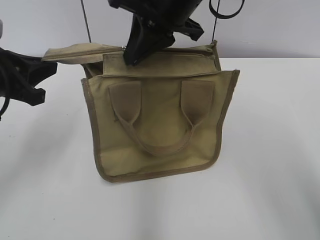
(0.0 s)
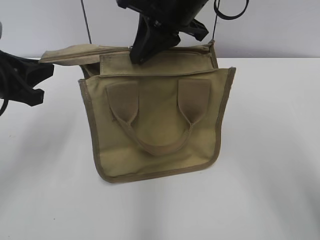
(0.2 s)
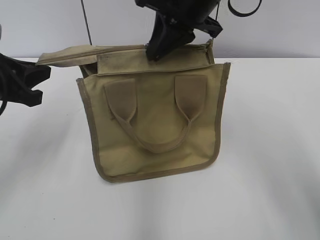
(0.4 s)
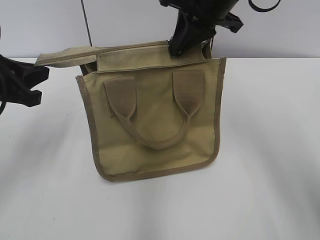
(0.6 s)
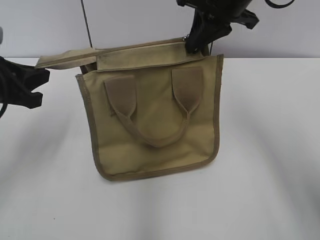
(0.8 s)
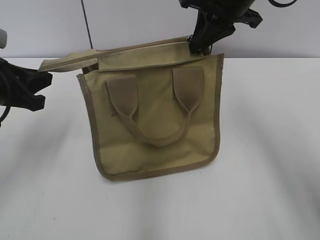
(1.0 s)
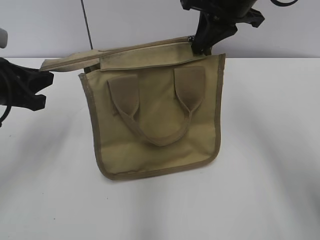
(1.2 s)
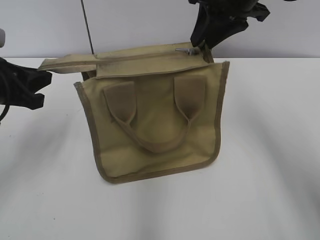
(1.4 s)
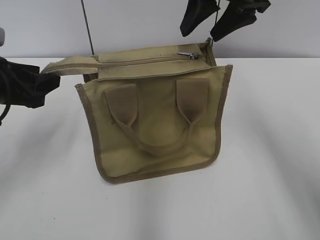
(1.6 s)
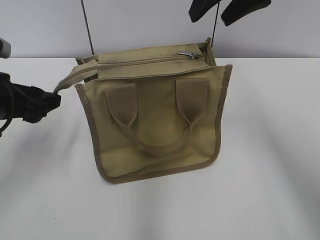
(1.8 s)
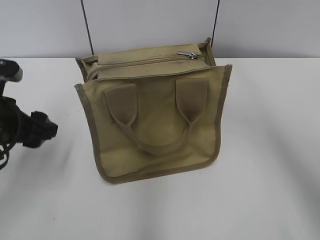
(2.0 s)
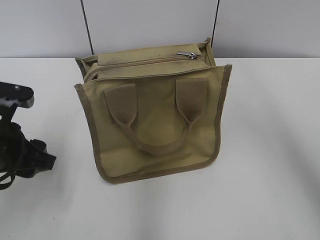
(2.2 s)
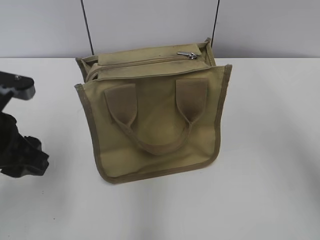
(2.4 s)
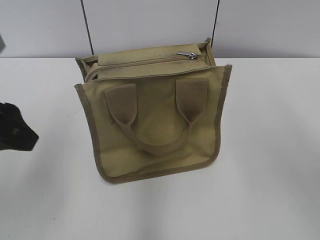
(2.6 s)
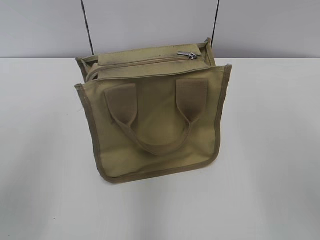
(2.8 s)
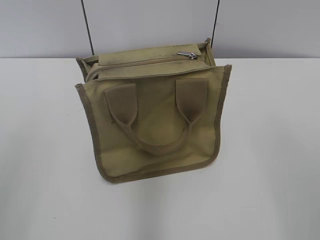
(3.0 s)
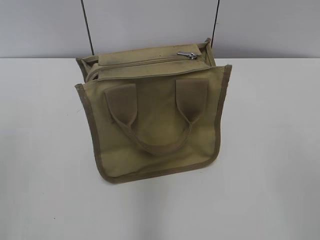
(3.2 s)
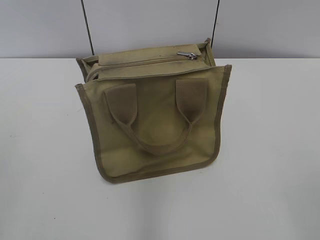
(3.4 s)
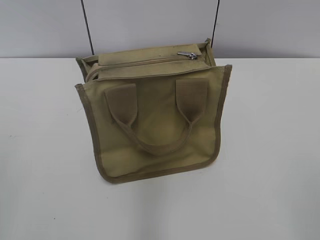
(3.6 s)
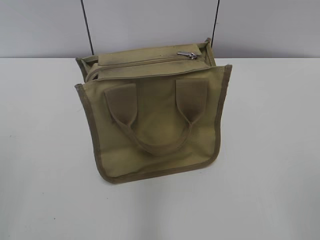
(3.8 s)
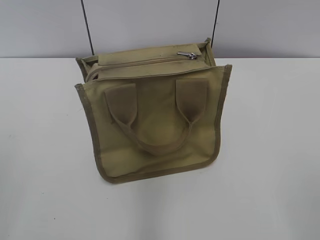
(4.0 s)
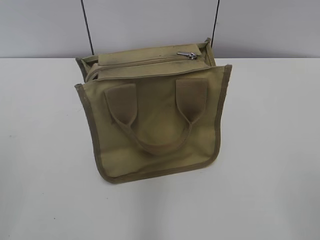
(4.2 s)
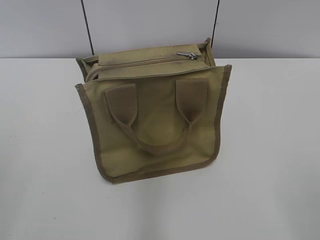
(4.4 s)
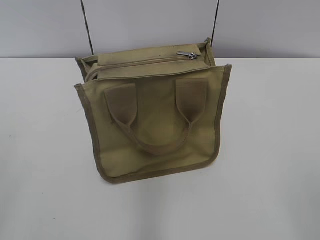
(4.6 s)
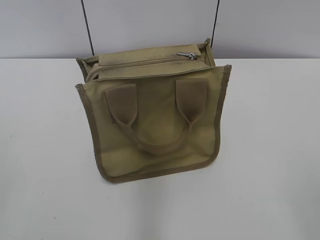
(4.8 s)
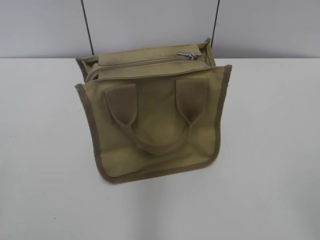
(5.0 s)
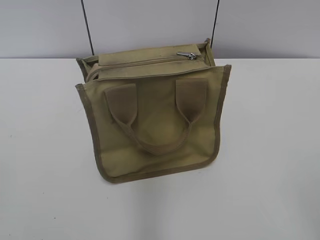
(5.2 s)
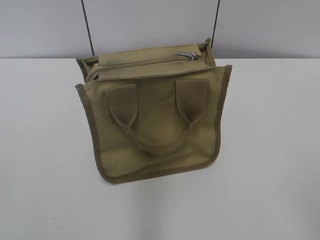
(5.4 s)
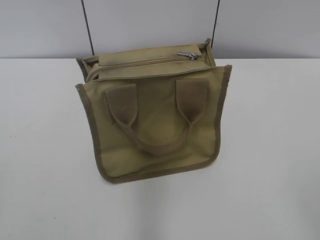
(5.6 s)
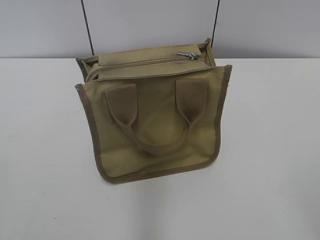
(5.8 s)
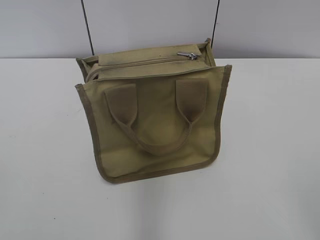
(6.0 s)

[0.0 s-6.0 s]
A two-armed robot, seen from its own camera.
Step, 1.6 to 1.8 s: Grab the zipper with your left hand.
0.0 to 1.6 s: The right gripper heads to the right, covering approximately 10 cm, and opens. Meanwhile the left gripper opens its fingers.
1.6 to 3.0 s: The left gripper travels backward and upward by about 20 cm. Meanwhile the right gripper shifts some 30 cm backward and to the right.
